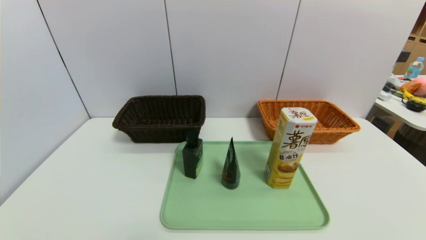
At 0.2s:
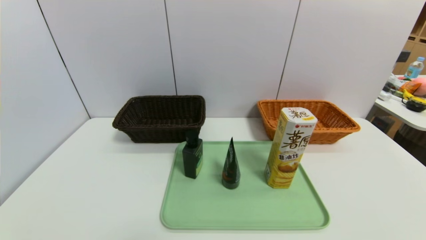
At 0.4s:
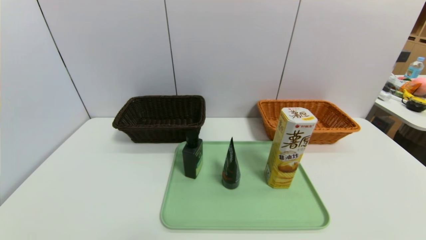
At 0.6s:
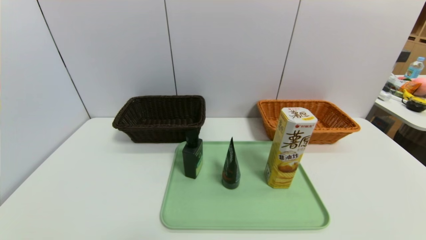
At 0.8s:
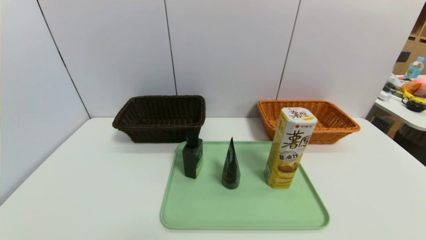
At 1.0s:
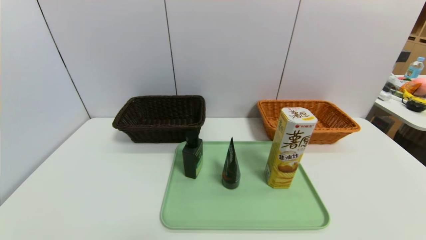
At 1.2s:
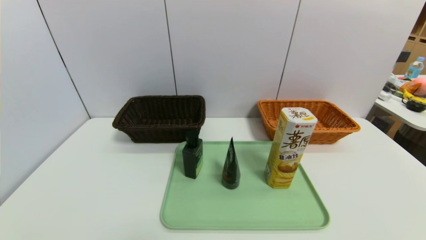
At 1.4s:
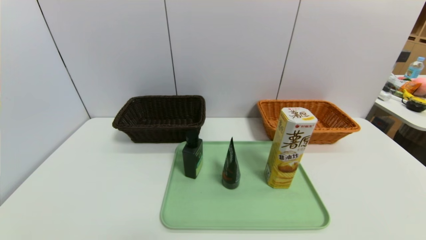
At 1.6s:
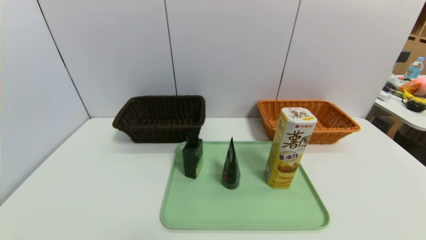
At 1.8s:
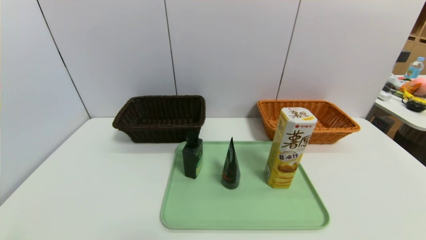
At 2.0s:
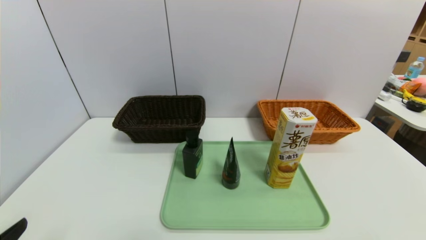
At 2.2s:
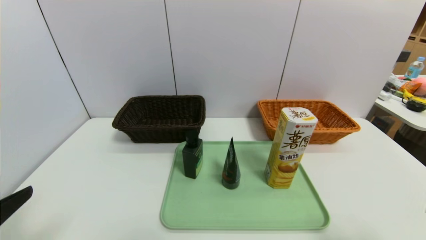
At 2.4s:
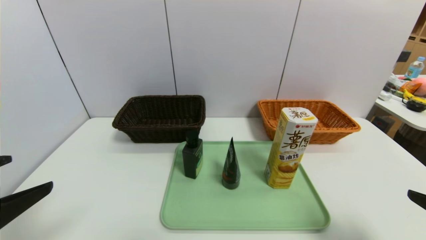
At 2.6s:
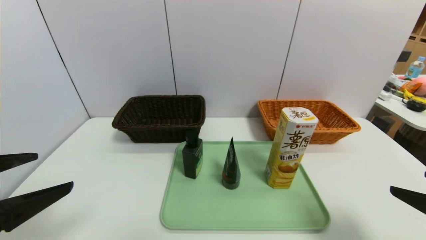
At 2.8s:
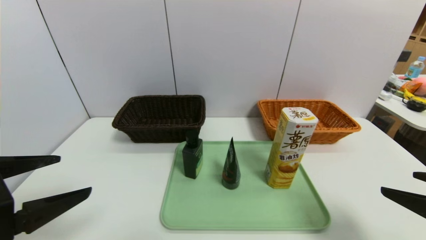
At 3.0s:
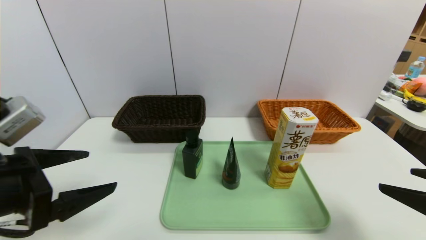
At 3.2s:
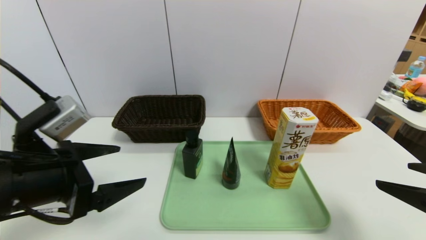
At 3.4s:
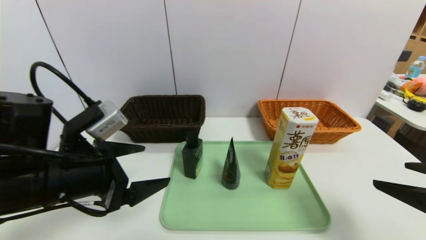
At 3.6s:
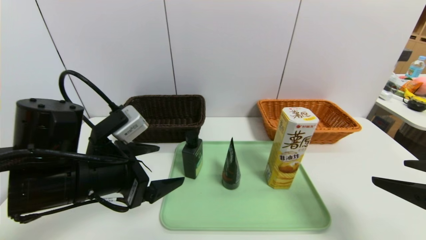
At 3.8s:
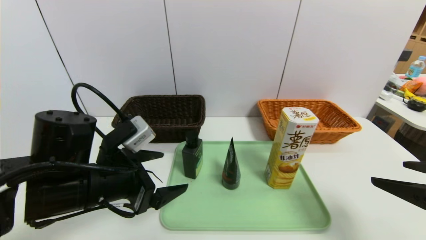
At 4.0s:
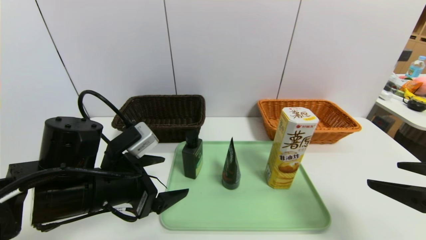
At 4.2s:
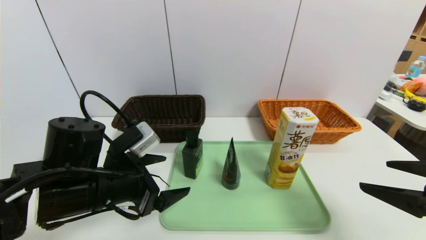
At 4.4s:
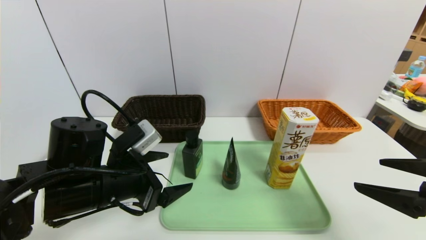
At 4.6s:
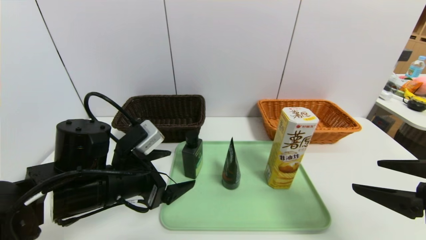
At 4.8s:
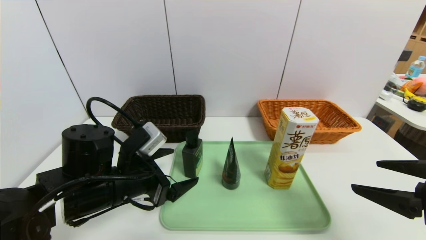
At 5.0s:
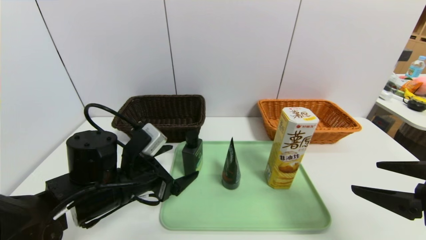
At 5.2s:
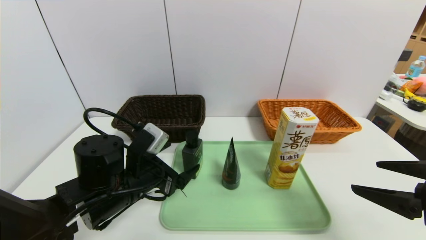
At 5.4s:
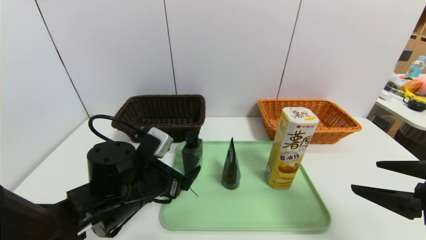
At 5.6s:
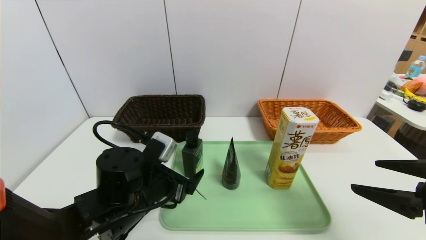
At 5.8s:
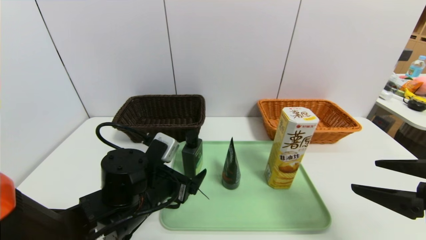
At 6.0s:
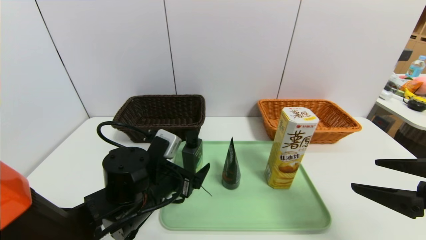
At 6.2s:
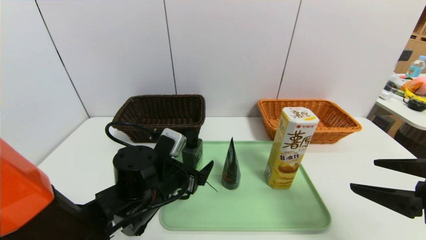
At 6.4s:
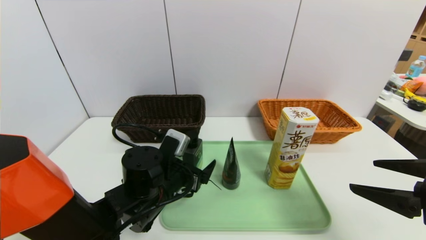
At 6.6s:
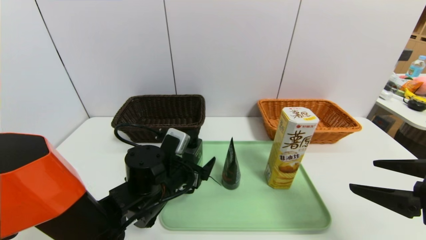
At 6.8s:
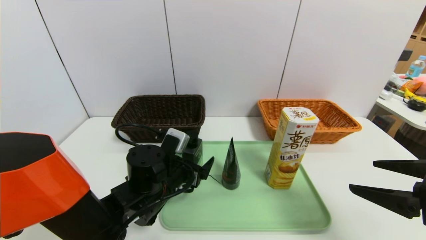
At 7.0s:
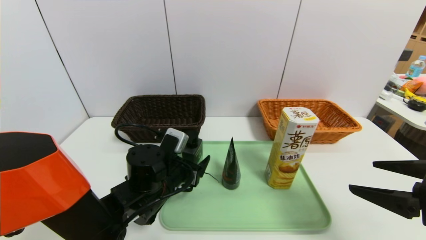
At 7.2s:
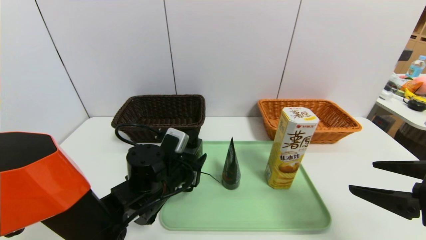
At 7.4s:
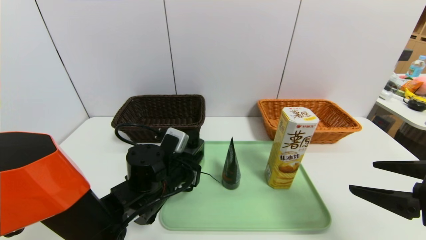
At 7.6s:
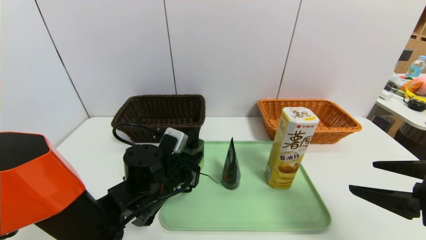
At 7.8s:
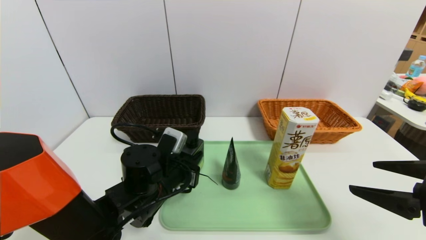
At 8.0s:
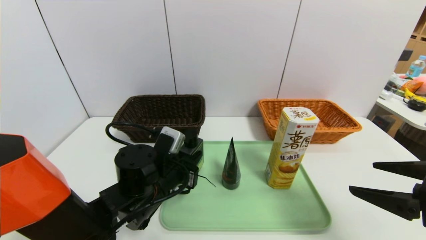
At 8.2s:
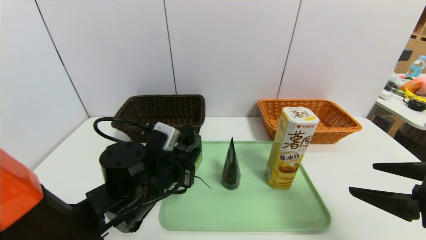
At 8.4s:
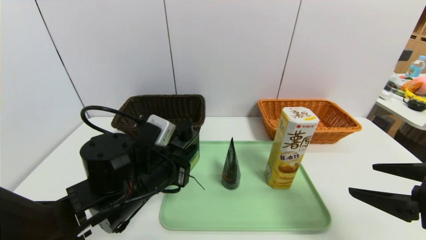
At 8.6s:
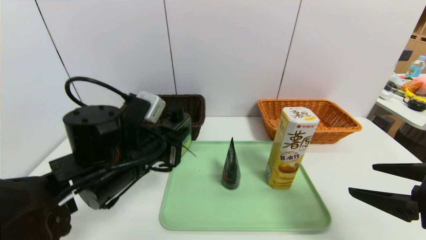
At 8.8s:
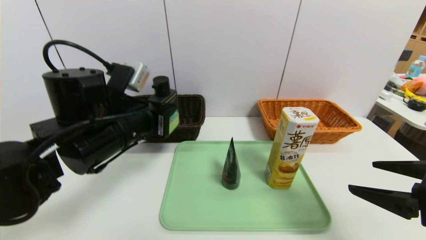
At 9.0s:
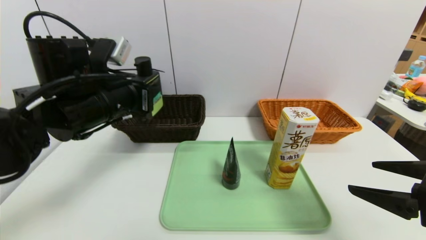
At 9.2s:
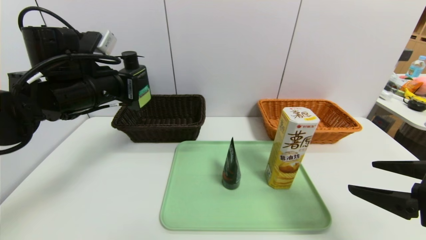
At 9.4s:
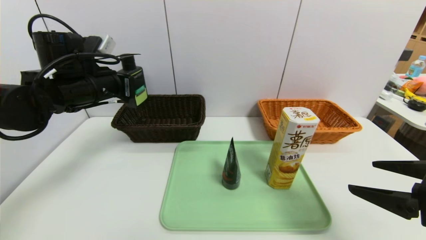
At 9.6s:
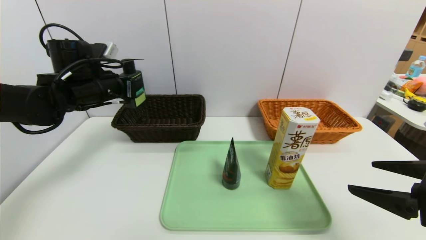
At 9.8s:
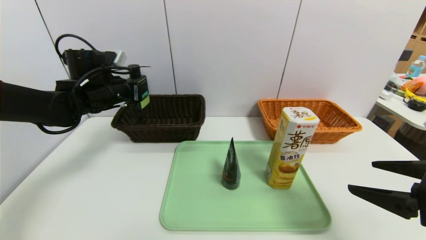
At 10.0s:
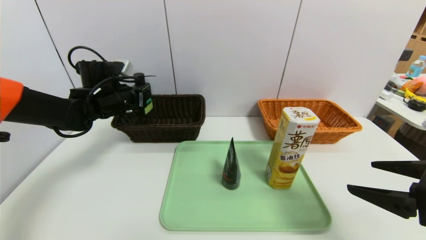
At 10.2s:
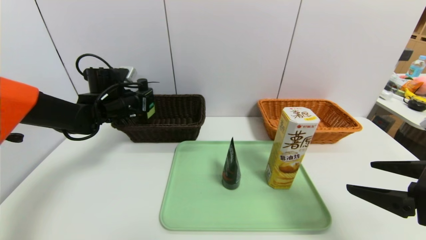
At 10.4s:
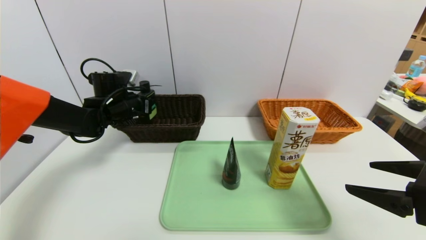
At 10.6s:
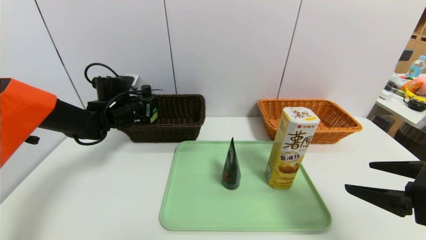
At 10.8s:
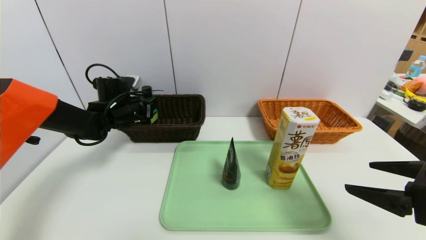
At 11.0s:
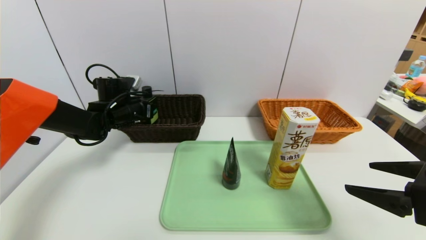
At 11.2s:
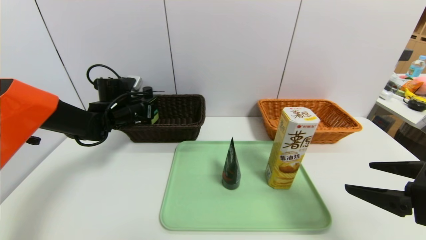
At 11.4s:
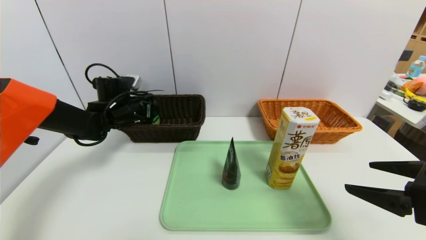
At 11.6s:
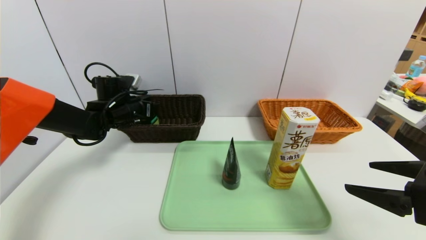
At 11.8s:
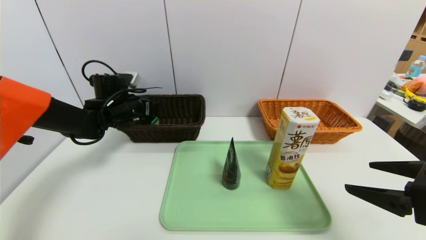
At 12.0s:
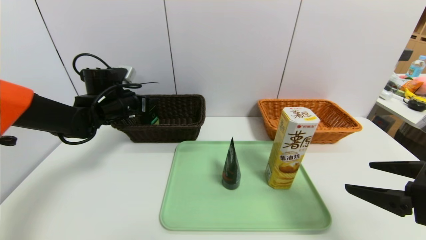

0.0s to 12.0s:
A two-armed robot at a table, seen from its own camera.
Task of the whole recording: place the food in the right basket with the right gripper, and place the non food items in the left basket with the left gripper.
Step, 0.0s to 12.0s: Grasp the hard cleanser and put it in the left basket.
1.6s to 3.0s: The two grippers go about 20 cm forward and upward.
3.0s to 4.4s: The left gripper heads to the right, forward and downward, covering roughly 15 cm.
4.4s to 6.0s: The left gripper is displaced to the right and downward by some 5 cm.
6.0s to 7.6s: The left gripper closes its fingers.
7.6s to 9.0s: The left gripper shifts about 20 cm upward and to the left.
9.0s to 10.4s: The left gripper goes approximately 20 cm forward and downward.
10.4s to 12.0s: The left gripper opens up.

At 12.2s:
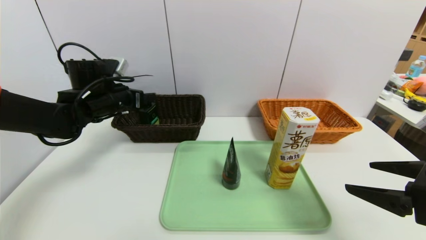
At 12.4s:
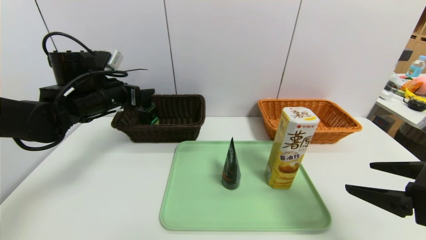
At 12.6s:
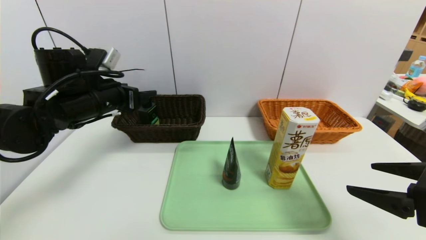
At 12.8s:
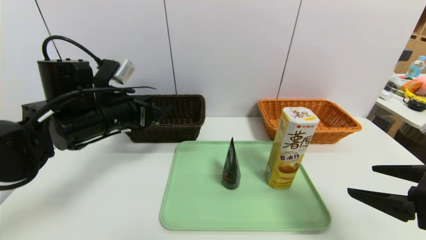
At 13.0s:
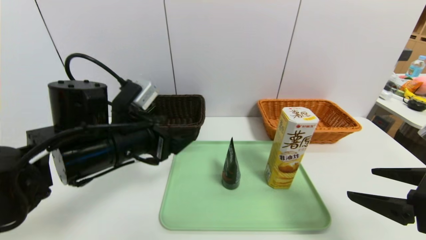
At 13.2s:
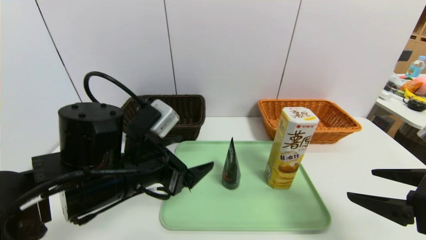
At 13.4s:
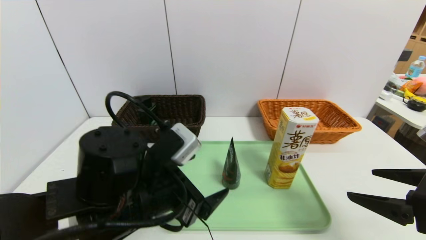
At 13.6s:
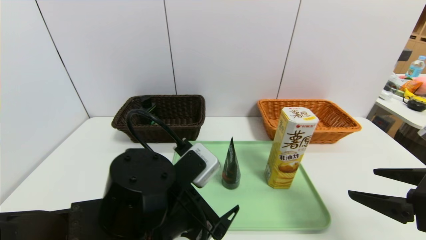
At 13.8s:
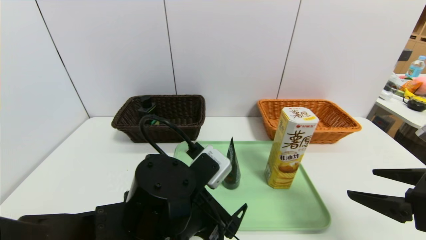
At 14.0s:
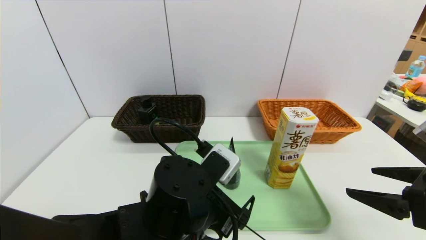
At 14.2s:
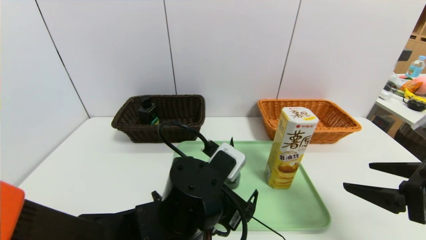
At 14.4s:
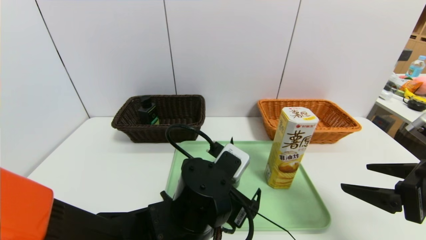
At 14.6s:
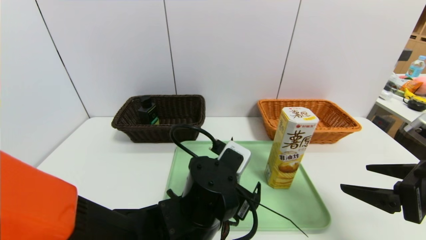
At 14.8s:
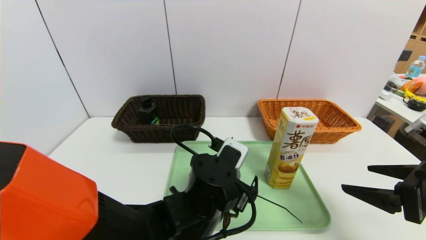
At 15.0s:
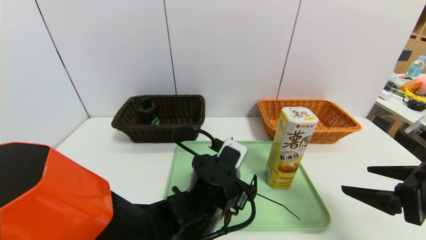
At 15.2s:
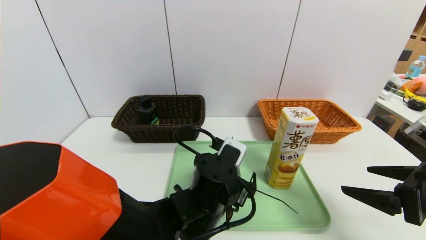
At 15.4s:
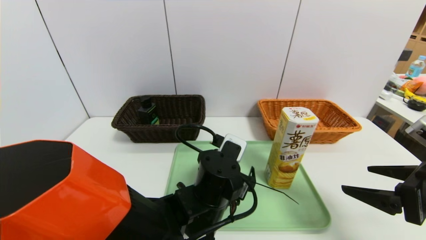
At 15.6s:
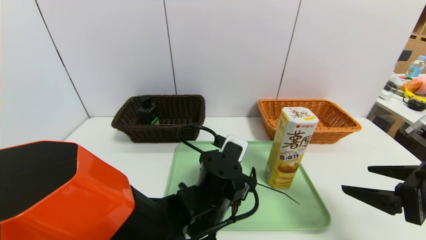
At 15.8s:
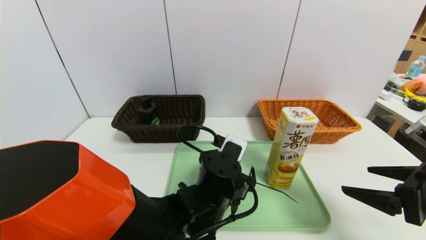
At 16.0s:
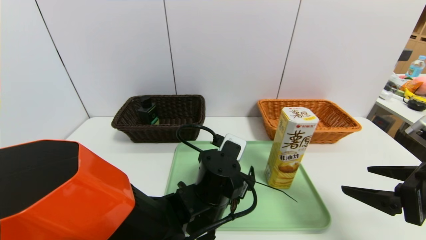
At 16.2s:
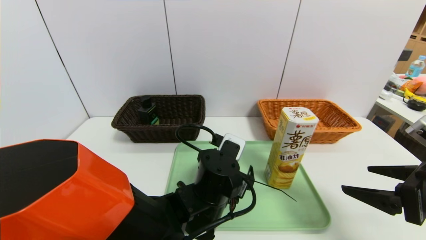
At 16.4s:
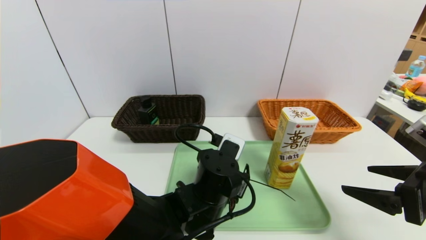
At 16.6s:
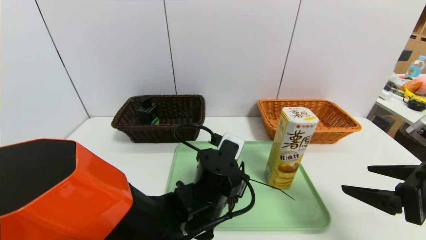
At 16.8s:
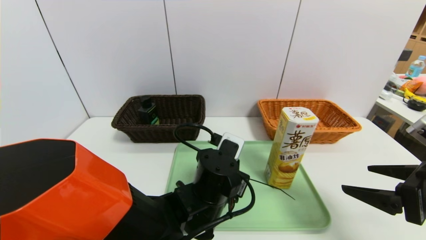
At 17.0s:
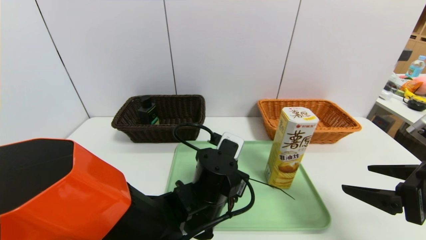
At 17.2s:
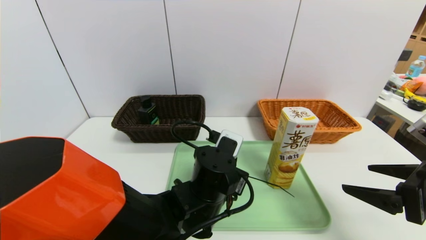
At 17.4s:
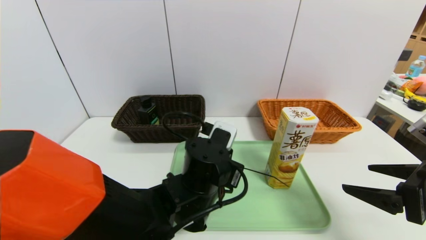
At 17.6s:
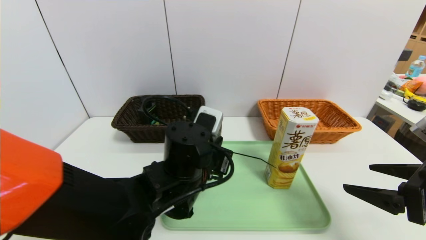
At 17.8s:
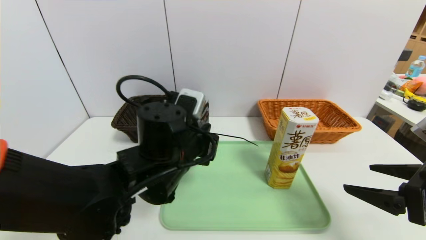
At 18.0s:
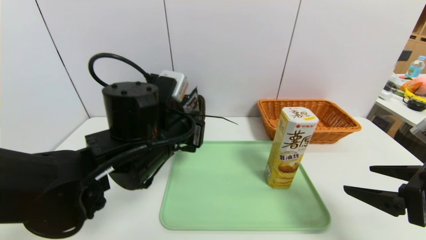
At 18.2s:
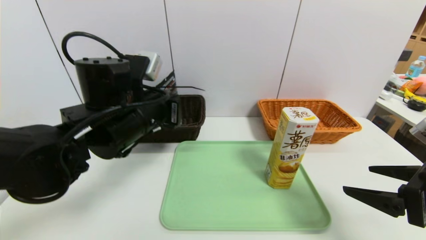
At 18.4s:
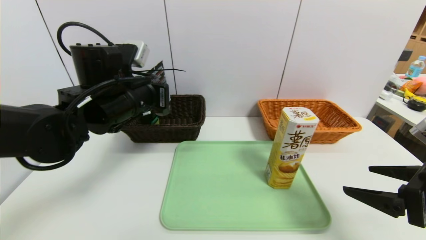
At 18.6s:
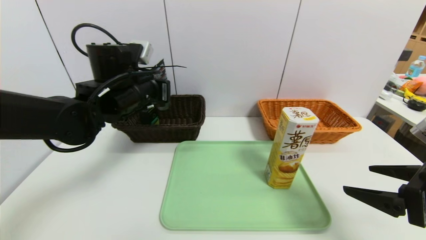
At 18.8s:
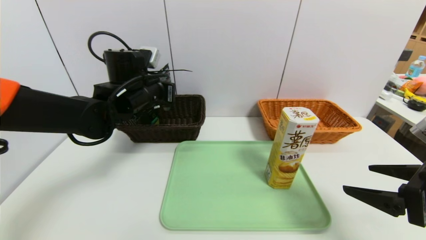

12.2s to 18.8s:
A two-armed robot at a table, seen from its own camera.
Task of the whole recording: place the food in the right basket with the right gripper, and place the non food items in the left basket with the left gripper.
12.2s to 13.8s: The left gripper heads backward and to the right, covering approximately 30 cm.
13.8s to 15.4s: The left gripper goes some 10 cm forward and to the right.
15.4s to 17.2s: The left gripper closes.
17.2s to 18.8s: The left gripper travels to the left, forward and upward by about 25 cm.
